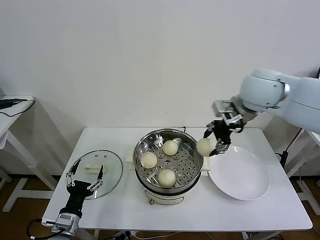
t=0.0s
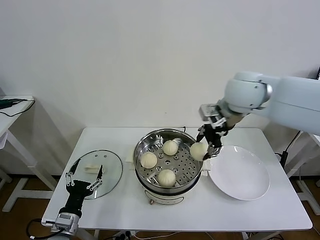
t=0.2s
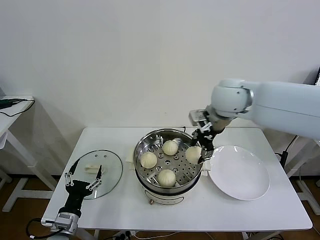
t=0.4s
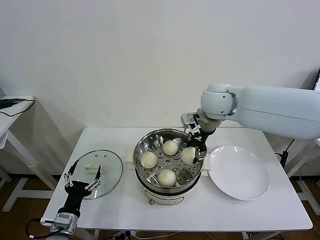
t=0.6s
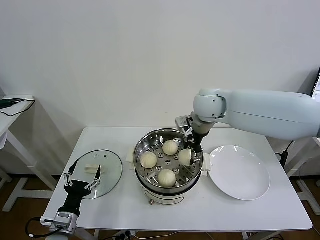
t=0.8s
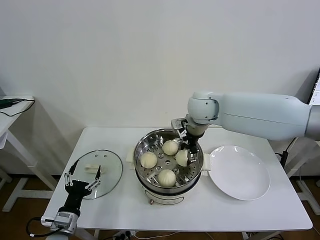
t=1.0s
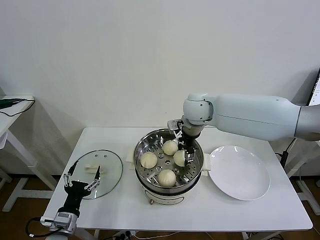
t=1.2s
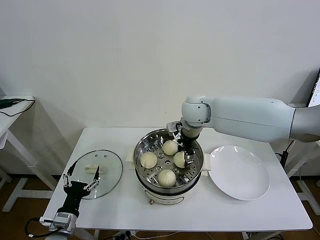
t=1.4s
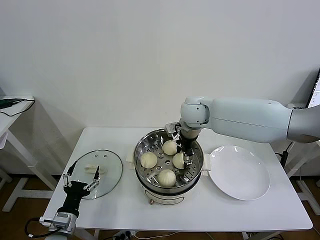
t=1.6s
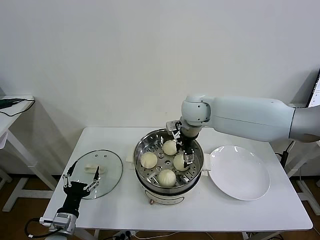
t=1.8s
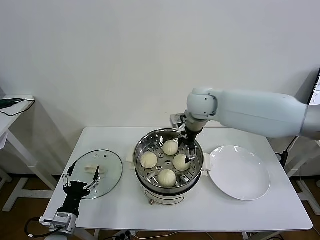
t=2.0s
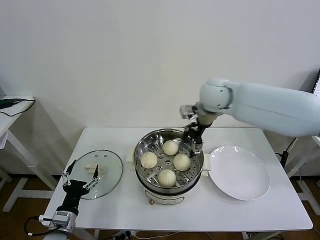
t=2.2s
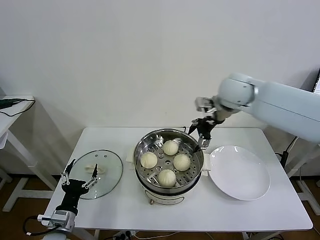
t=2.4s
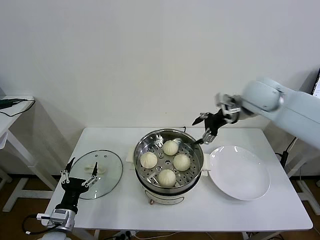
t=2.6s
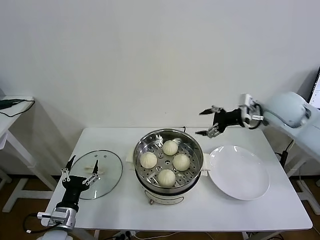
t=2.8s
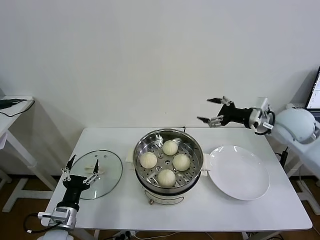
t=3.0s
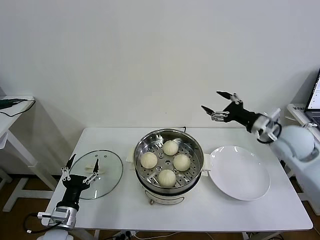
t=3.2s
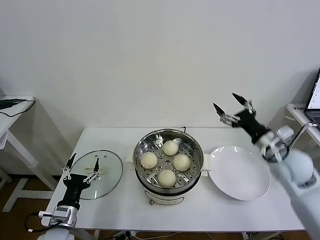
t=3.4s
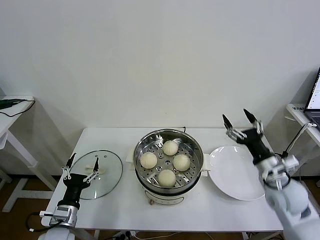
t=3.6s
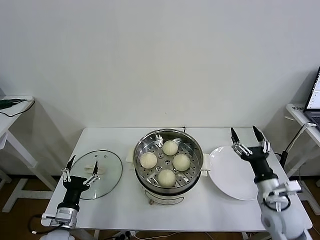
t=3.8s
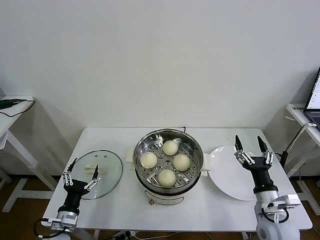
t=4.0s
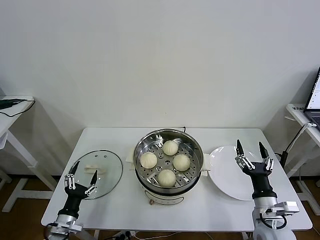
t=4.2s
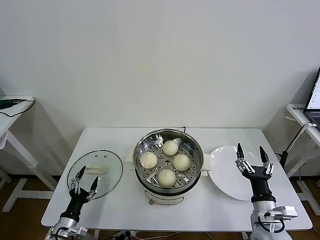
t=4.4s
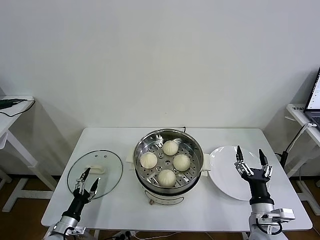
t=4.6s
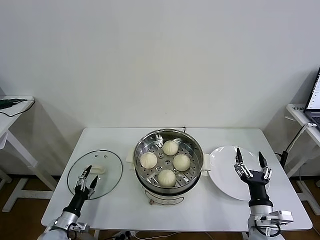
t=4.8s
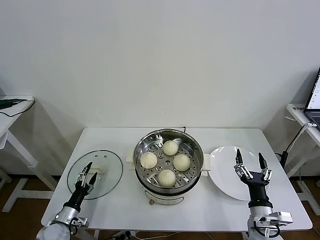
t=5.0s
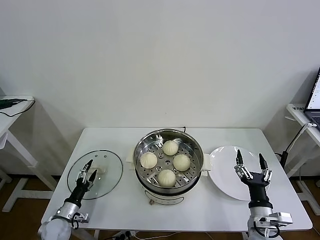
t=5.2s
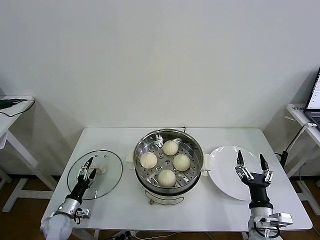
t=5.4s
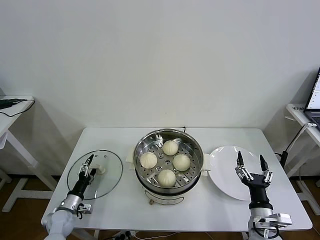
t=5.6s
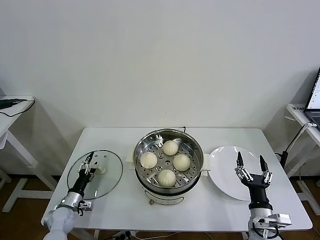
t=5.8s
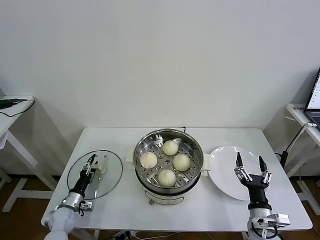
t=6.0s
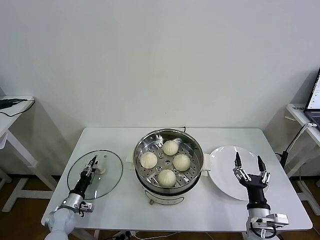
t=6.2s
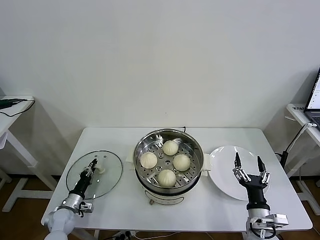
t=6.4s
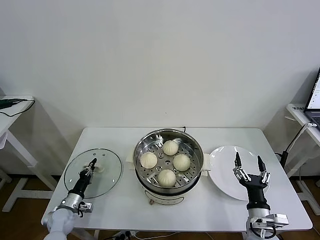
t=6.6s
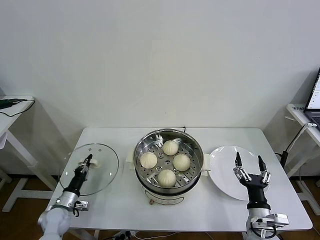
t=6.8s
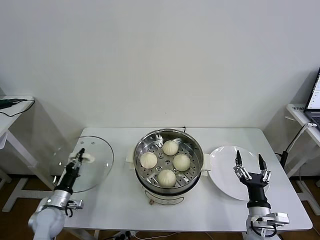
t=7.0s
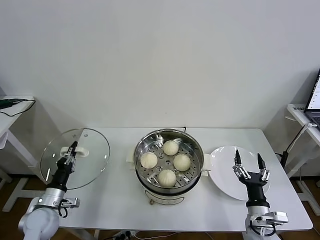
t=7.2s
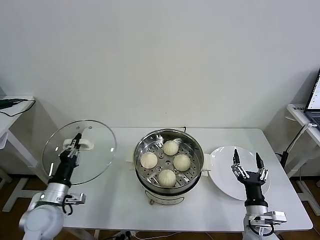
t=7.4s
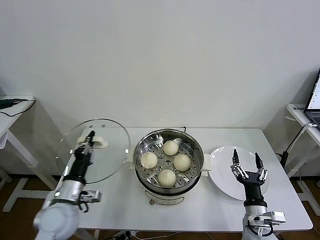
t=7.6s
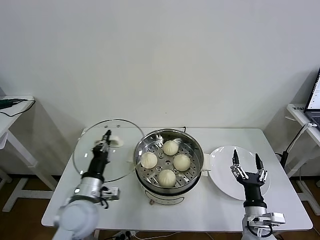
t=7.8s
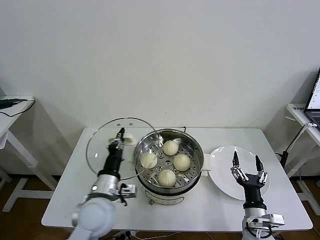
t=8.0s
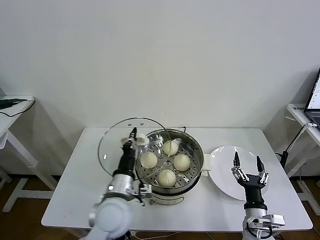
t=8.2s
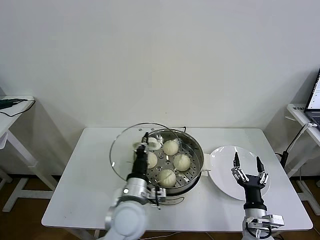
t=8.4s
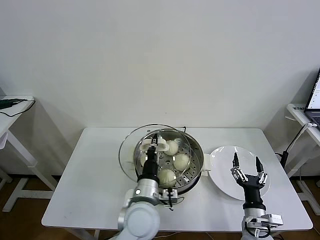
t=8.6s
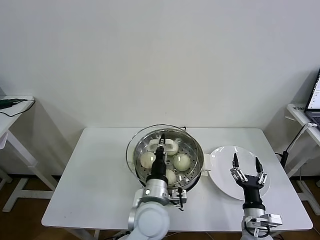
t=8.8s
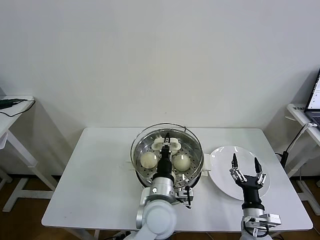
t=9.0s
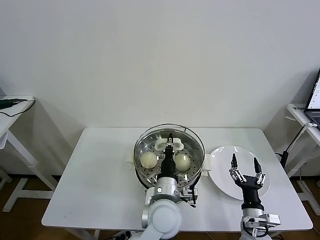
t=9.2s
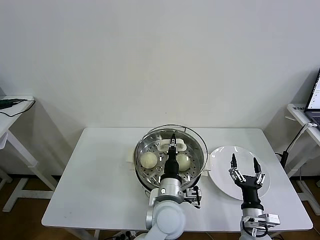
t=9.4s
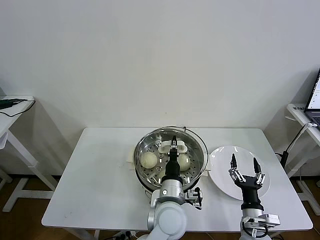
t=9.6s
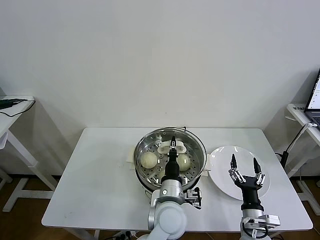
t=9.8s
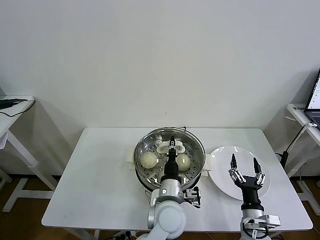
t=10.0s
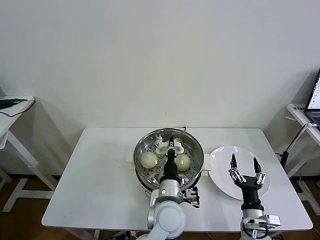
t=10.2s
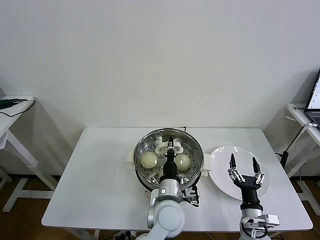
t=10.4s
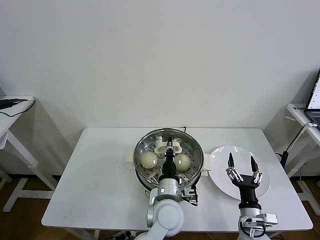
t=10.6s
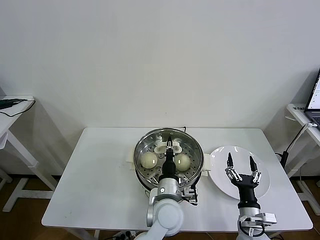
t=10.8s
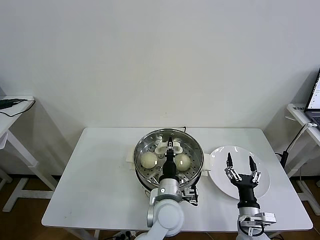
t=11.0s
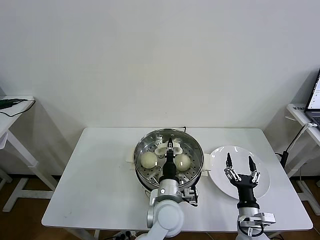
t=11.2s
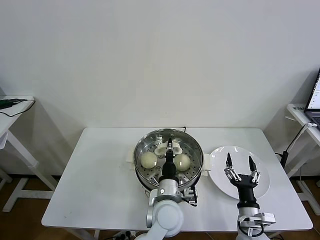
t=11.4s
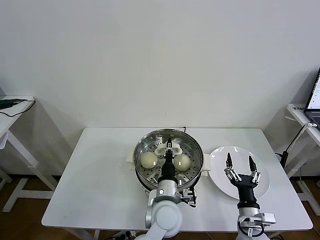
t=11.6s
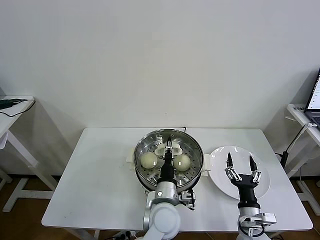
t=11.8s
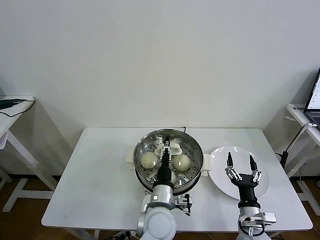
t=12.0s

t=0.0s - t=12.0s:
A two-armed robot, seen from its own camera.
Task of the whole recording: take steamed baozi put them in steamer then cover it.
Step, t=0.0s - t=1.8s: Place the baozi on the steamer with right gripper.
Step, t=2.0s - t=6.6s: Grasp the pot lid with left gripper.
t=0.0s - t=1.6s: The right gripper travels to the left, downward and forward by about 20 cm.
t=1.6s - t=3.0s: The right gripper heads to the right, covering approximately 25 cm, and opens its fingers.
t=3.0s - t=4.4s: The left gripper shifts roughly 10 cm downward. Meanwhile the right gripper moves downward and backward, about 30 cm.
t=4.4s - t=6.0s: The left gripper moves forward, approximately 10 cm.
t=6.0s - t=7.6s: The left gripper goes about 25 cm upward and to the right, and closes.
t=7.6s - t=9.0s: The left gripper travels to the right by some 25 cm.
t=9.0s - t=10.4s: The grippers move only a little.
t=10.4s - t=12.0s: The left gripper opens up.

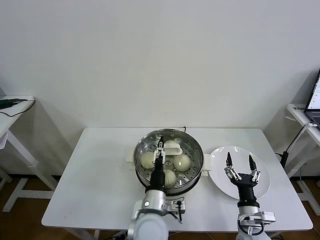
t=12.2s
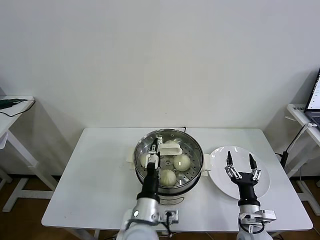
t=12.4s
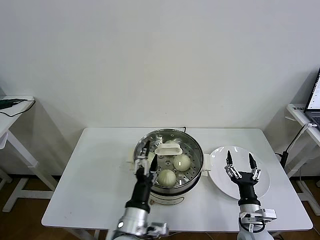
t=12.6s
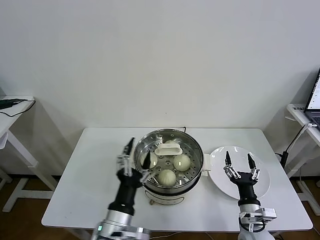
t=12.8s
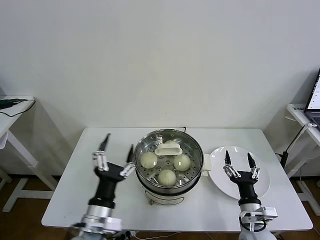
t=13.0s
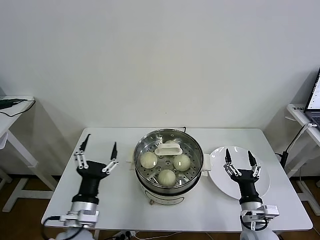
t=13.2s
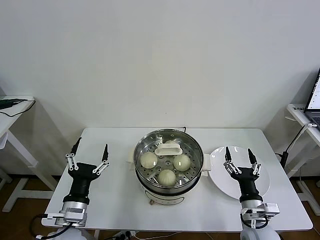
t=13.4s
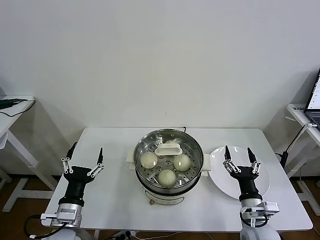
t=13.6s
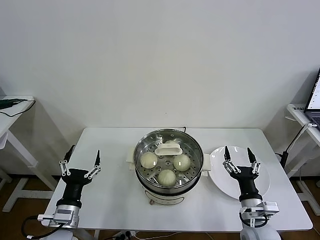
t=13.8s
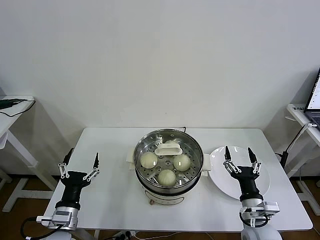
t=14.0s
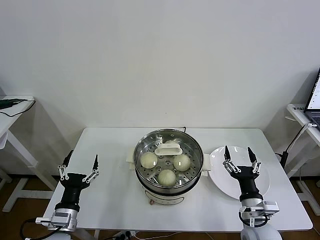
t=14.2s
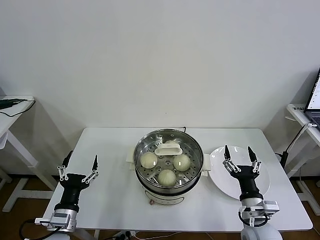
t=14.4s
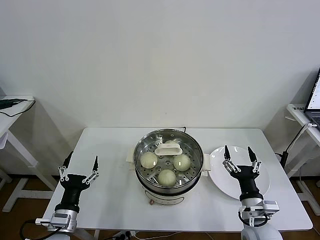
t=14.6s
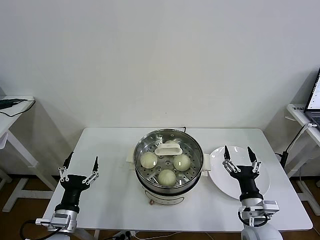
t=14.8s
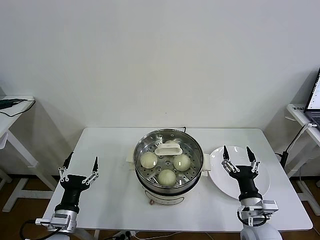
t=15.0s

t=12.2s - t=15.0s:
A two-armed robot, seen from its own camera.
Task of the whole recording: take steamed baozi put them in steamer then cover it.
t=12.2s - t=13.6s: The left gripper moves to the left, about 25 cm.
t=13.6s - t=15.0s: The left gripper ends up some 5 cm from where it was.

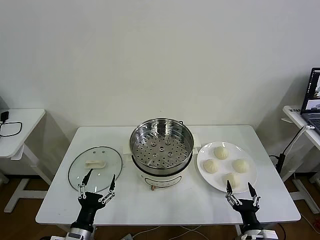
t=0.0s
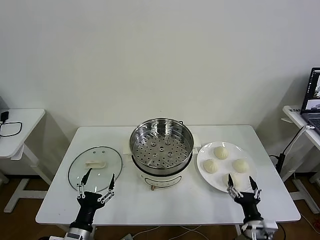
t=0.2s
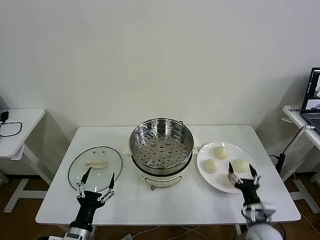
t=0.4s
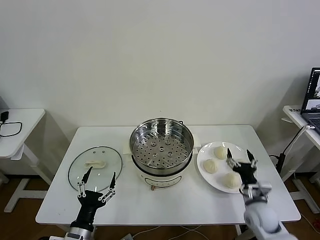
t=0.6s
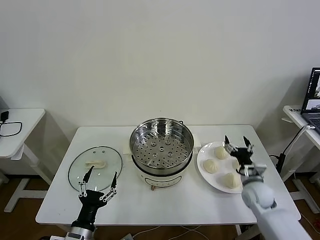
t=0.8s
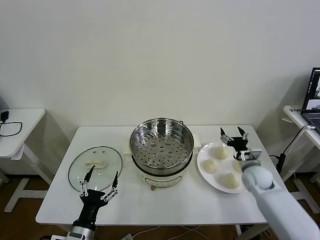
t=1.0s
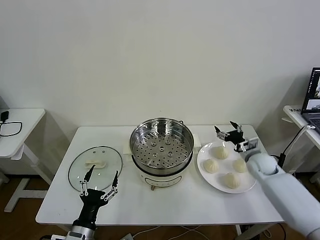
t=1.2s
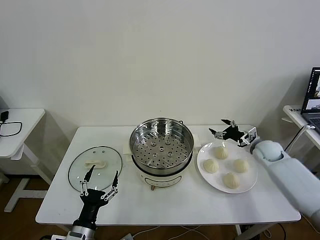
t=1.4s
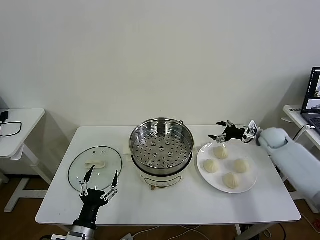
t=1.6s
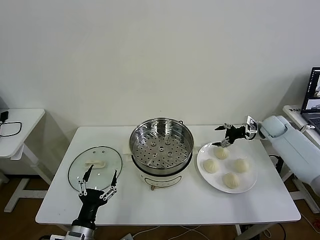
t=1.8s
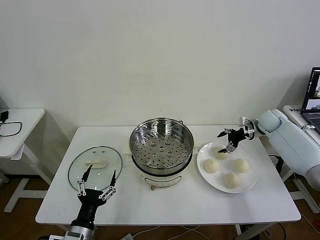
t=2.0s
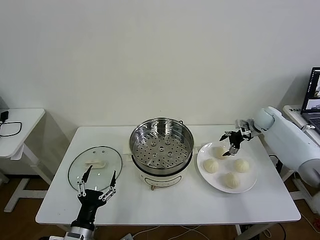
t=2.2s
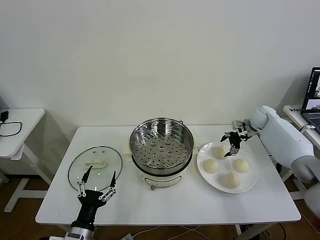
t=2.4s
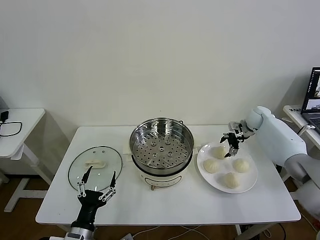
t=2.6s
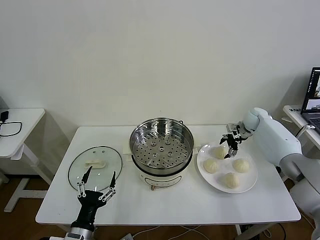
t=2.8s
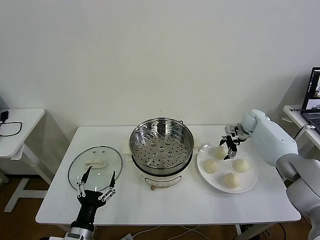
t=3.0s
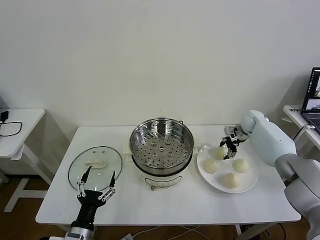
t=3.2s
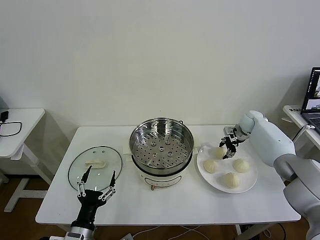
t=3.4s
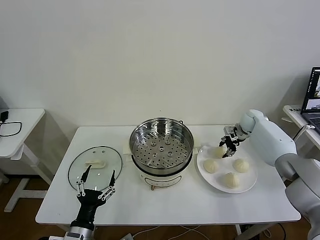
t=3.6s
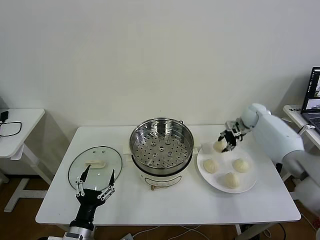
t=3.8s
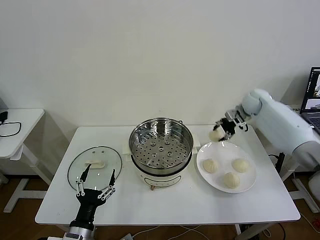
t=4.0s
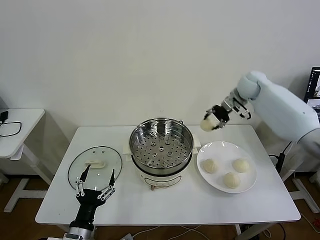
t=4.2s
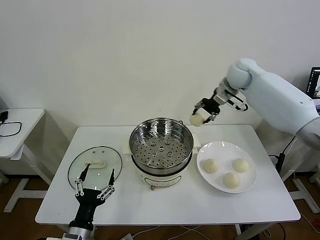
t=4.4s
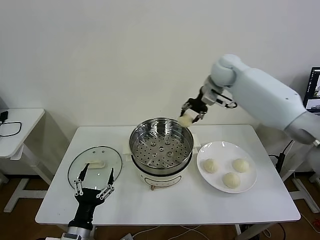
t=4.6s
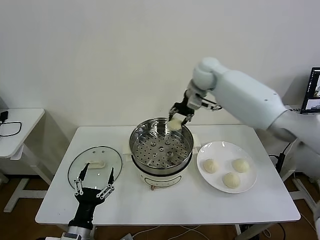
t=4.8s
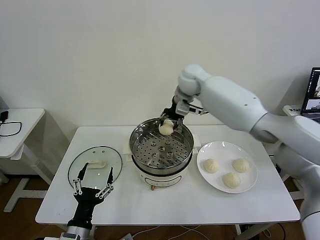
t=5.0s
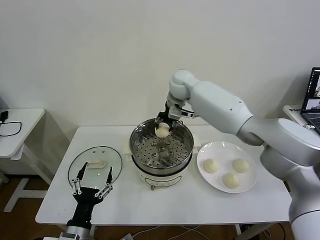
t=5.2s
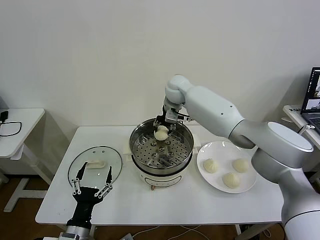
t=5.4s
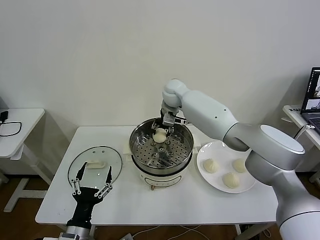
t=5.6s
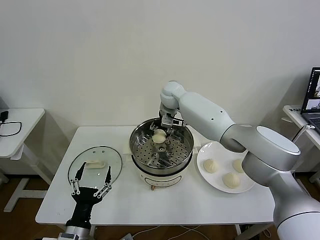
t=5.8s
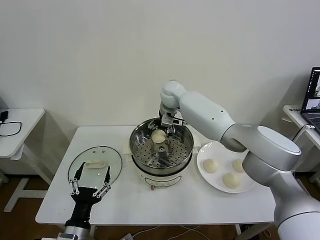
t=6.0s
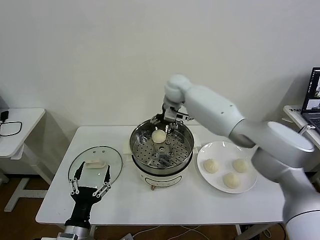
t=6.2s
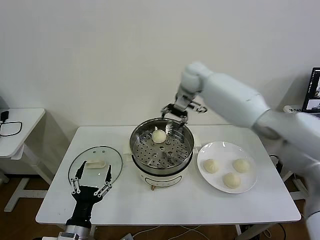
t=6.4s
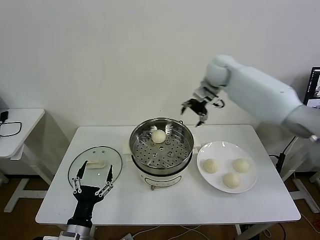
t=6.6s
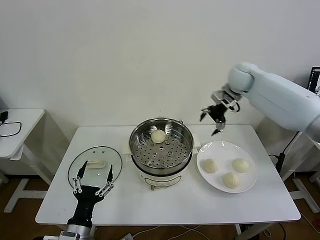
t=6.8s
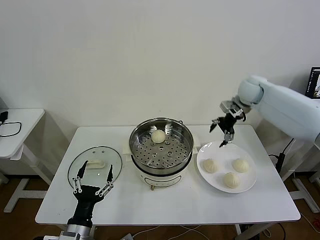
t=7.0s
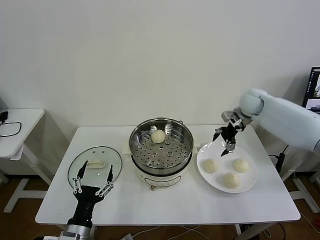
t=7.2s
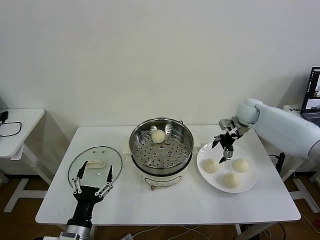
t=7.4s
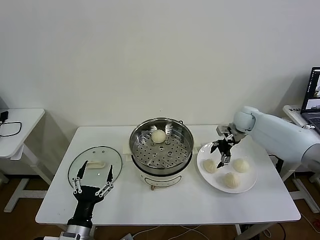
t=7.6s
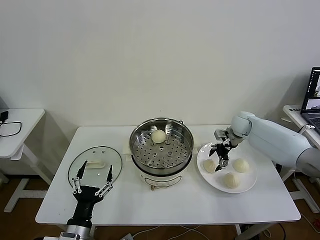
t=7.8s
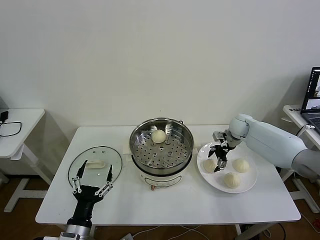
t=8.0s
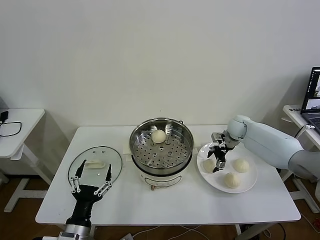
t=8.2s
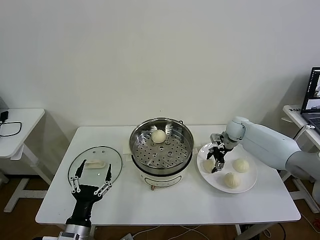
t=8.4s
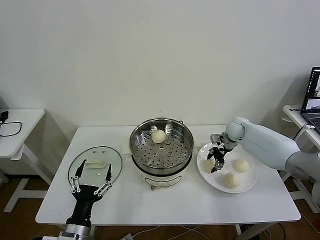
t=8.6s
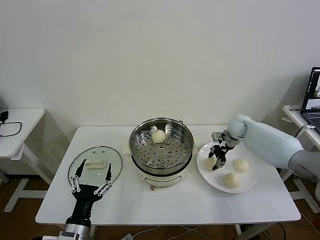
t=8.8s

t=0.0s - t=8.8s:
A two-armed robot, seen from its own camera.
Task of the whole recording: take steamed baozi put them in steamer then cover it.
Step, t=0.0s - t=3.4s: Grasp the baozi in the plate with right gripper.
Step, t=3.8s - t=6.2s: Place the baozi on the steamer with right gripper.
Step, t=6.4s - t=8.6s: Grasp the baozi in the plate with right gripper.
t=1.4s - t=3.0s: The right gripper is displaced forward by about 10 cm.
t=3.0s - t=4.4s: The right gripper is displaced upward and to the left by some 30 cm, and closes its fingers.
t=4.4s - t=5.8s: The right gripper is displaced to the left and downward by roughly 20 cm, and opens.
t=5.8s - t=7.4s: The right gripper moves to the right, about 30 cm.
t=7.4s - t=8.8s: The right gripper closes.
